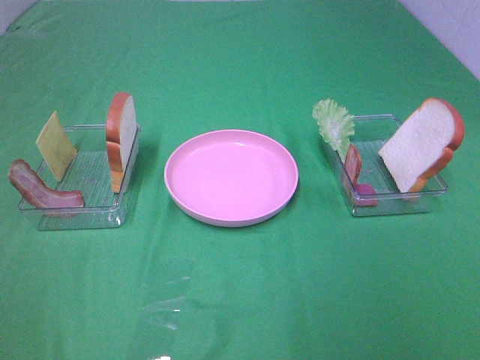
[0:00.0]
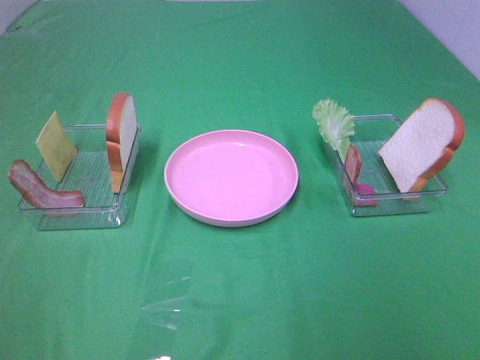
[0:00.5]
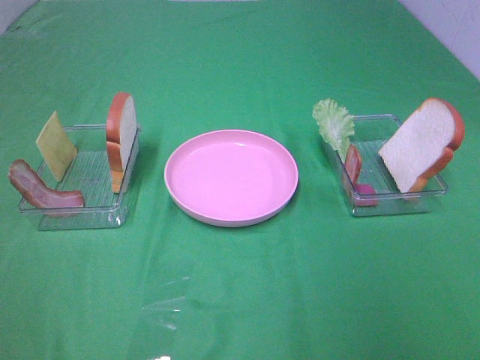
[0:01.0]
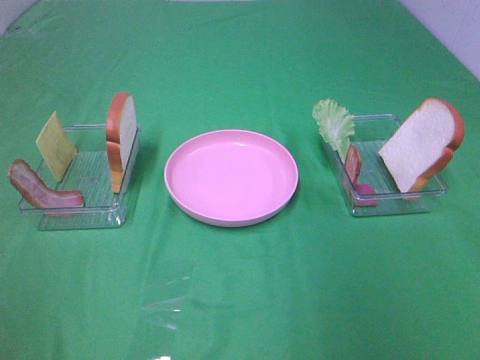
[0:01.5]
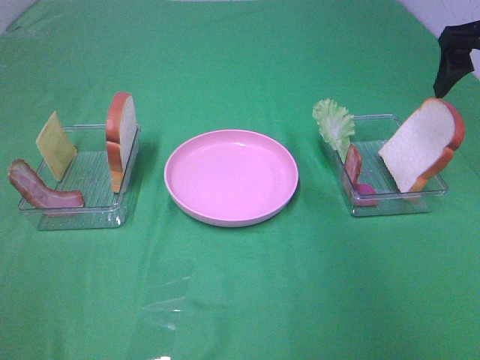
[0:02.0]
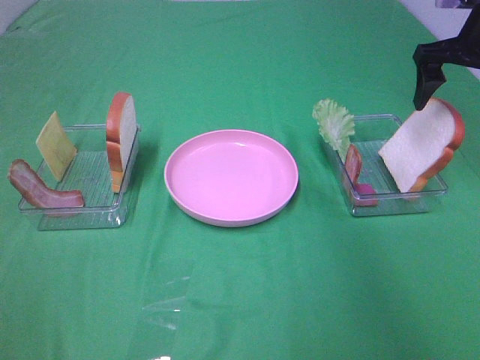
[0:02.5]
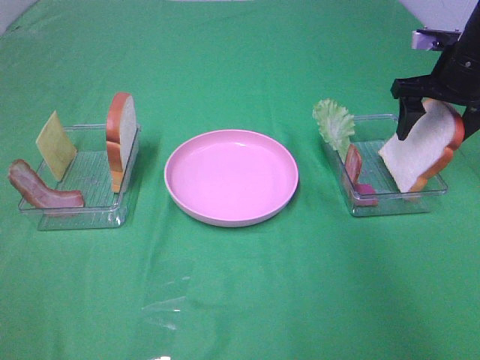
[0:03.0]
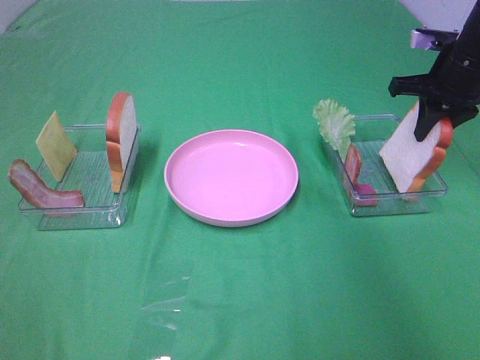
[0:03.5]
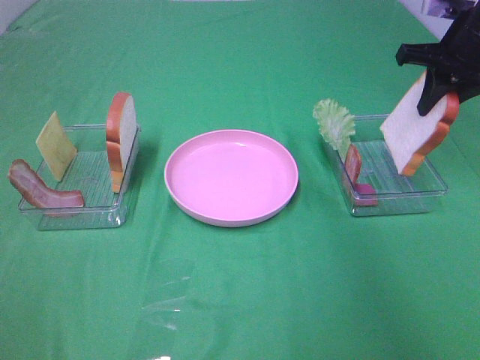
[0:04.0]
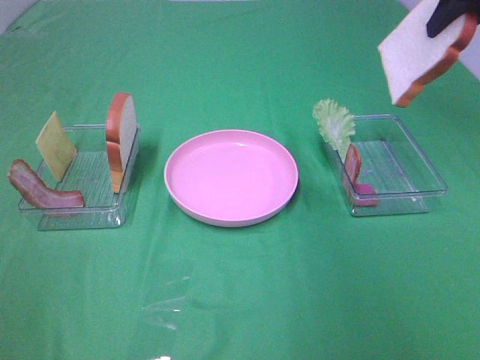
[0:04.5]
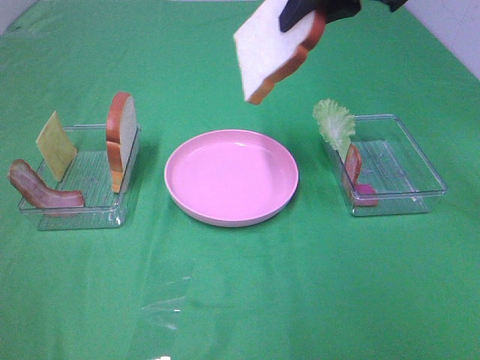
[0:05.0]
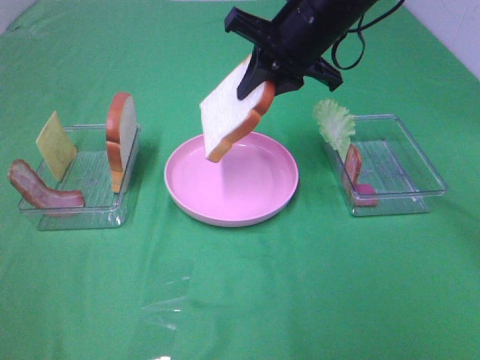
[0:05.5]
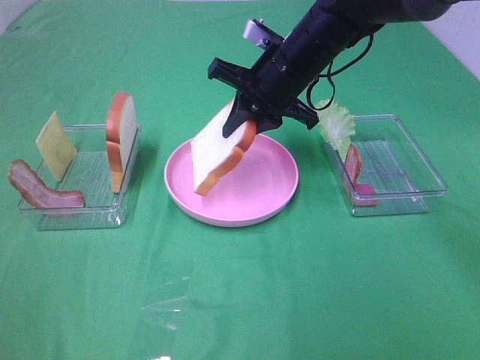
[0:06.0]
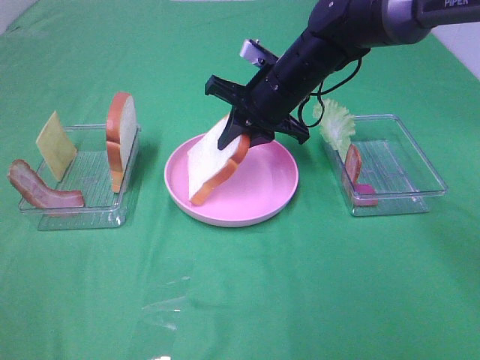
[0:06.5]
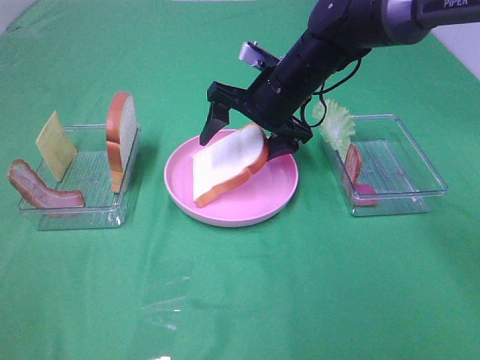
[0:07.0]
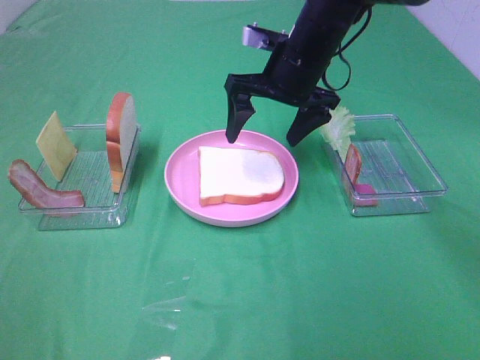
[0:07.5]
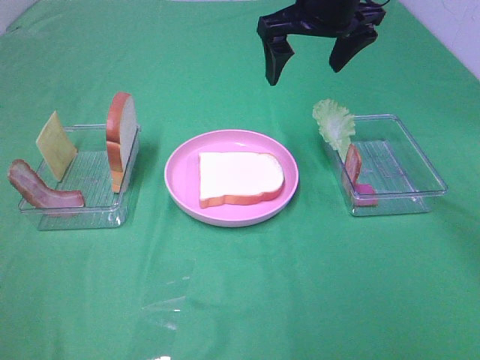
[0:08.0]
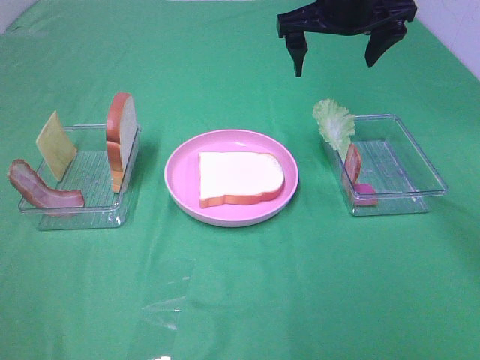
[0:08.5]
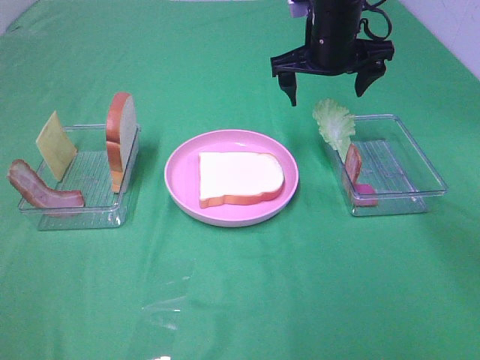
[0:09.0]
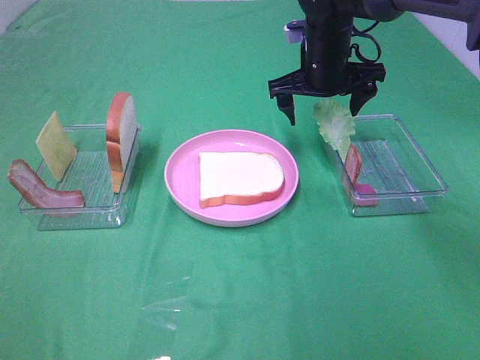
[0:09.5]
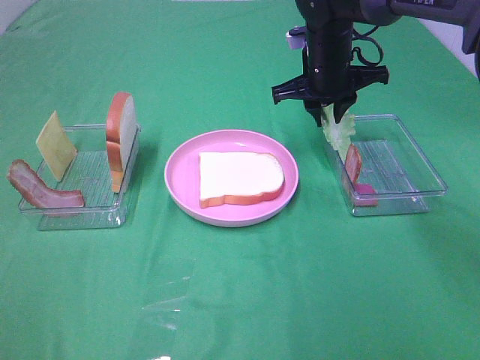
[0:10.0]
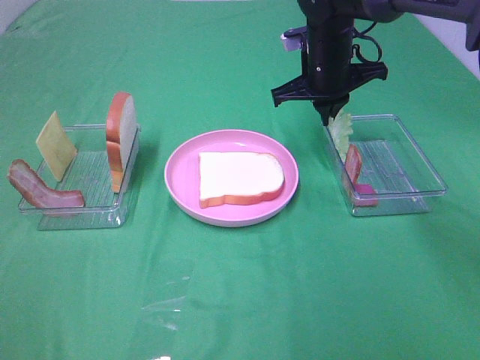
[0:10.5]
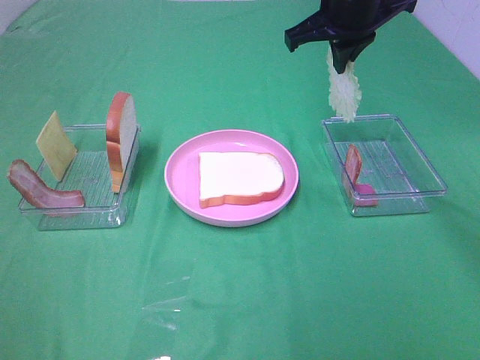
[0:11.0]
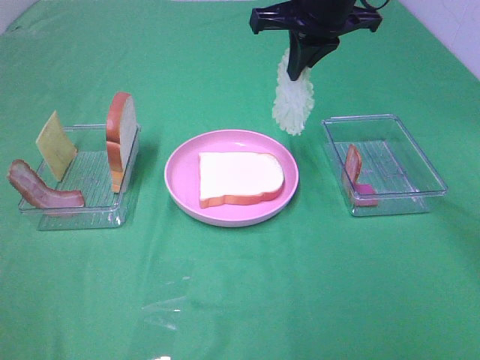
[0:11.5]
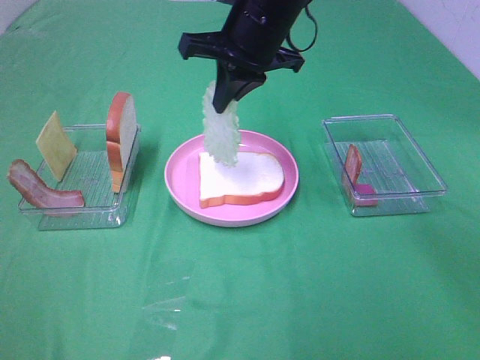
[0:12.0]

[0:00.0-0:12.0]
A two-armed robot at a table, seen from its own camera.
Task of the whole recording: Make sandwiches.
Step, 0:00.0 to 0:03.0: Right hand:grab the bread slice.
Step, 0:03.5 to 0:07.5: Right hand:place the bread slice on the plate.
Step, 0:08.0 to 0:10.0: Right hand:grab the lettuce slice.
0:00.0 to 0:02.0: The right gripper shifts roughly 35 cm forward.
0:02.0 to 0:04.0: The right gripper moves forward, approximately 5 cm, and closes.
0:04.0 to 0:06.0: The right gripper goes some 20 cm to the left.
0:06.0 to 0:08.0: The right gripper moves upward, some 10 cm, and opens its fingers.
0:08.0 to 0:10.0: The right gripper moves downward, roughly 10 cm, and closes.
0:10.0 to 0:12.0: The right gripper moves to the left, upward and backward, approximately 15 cm.

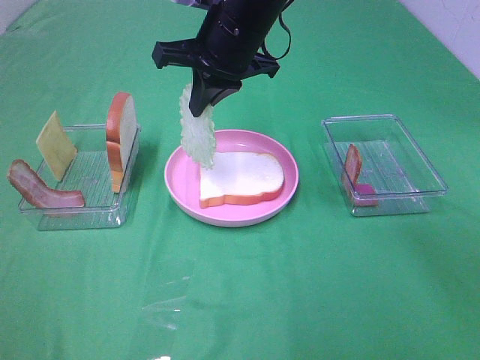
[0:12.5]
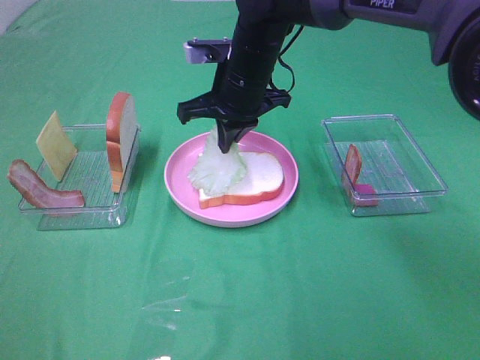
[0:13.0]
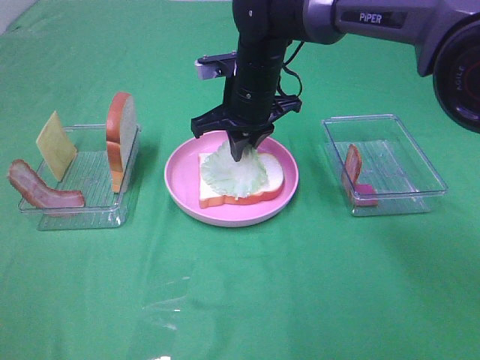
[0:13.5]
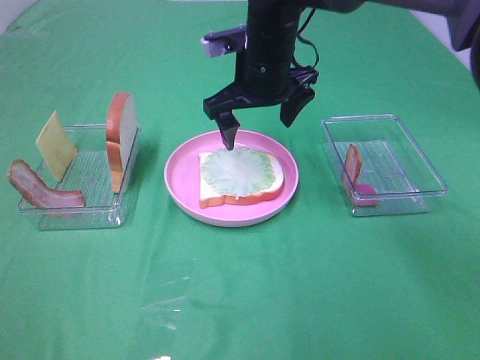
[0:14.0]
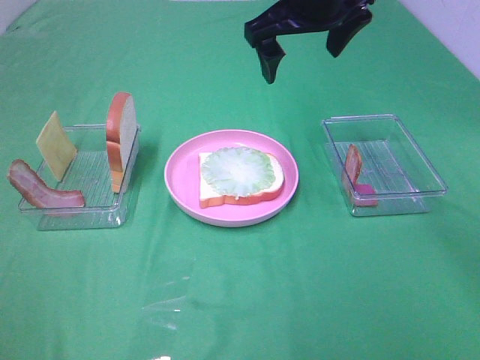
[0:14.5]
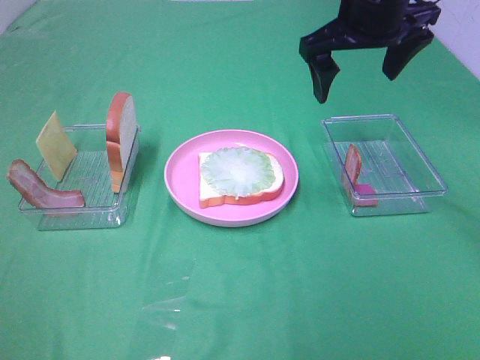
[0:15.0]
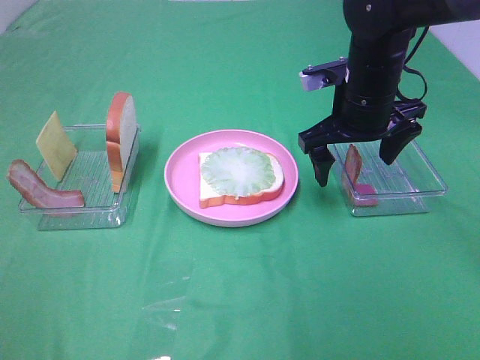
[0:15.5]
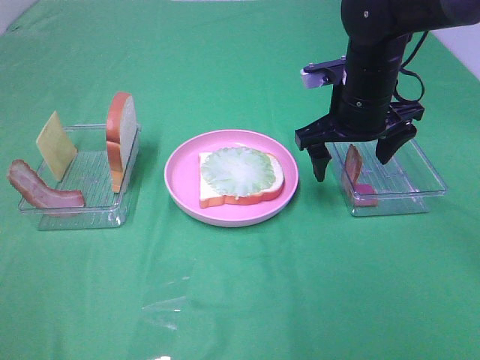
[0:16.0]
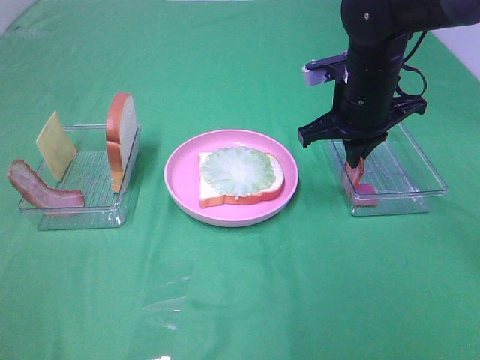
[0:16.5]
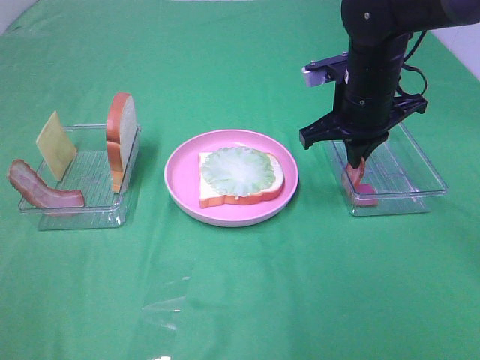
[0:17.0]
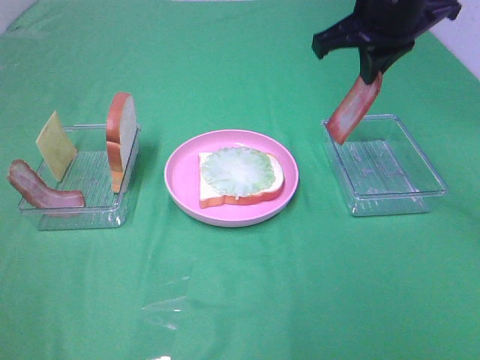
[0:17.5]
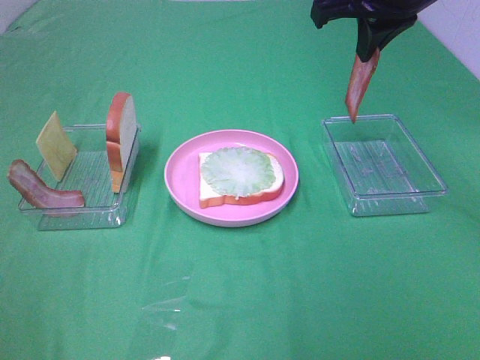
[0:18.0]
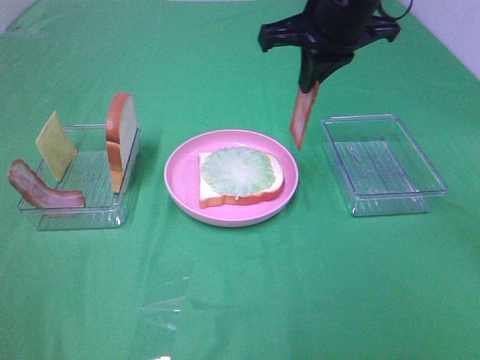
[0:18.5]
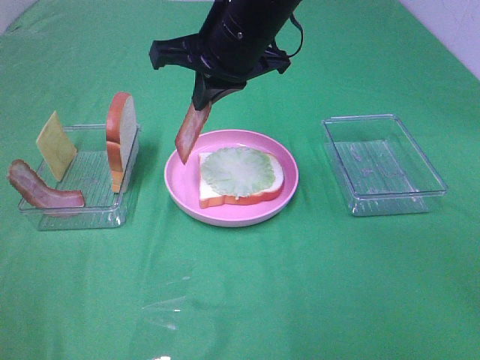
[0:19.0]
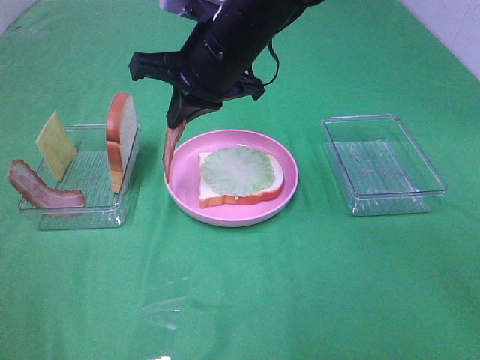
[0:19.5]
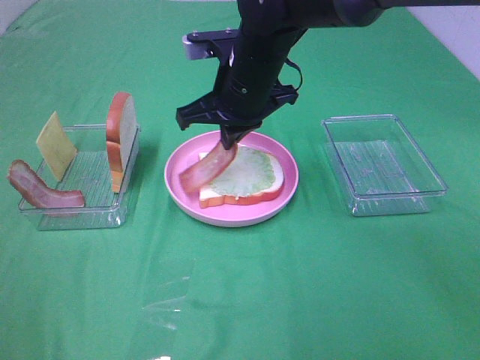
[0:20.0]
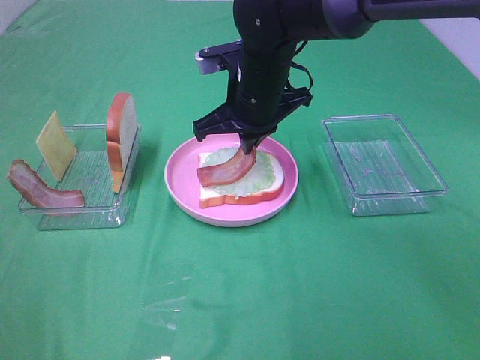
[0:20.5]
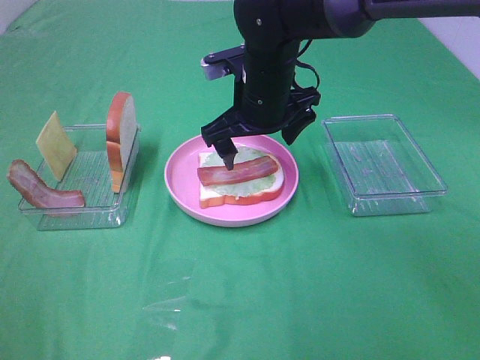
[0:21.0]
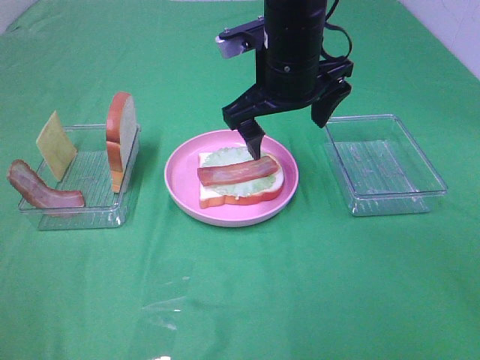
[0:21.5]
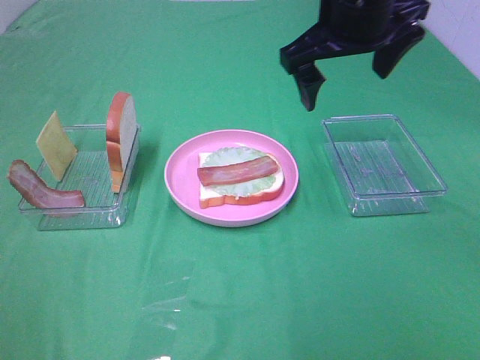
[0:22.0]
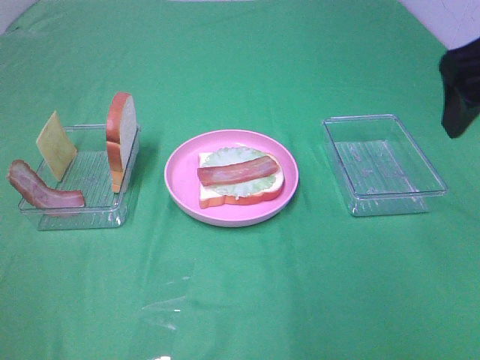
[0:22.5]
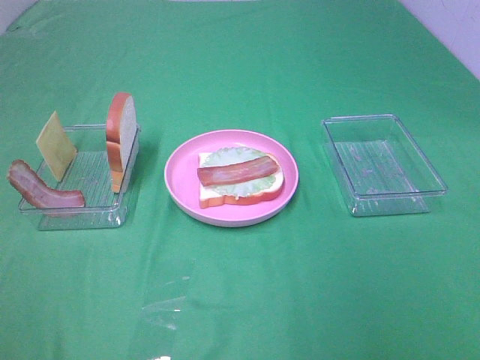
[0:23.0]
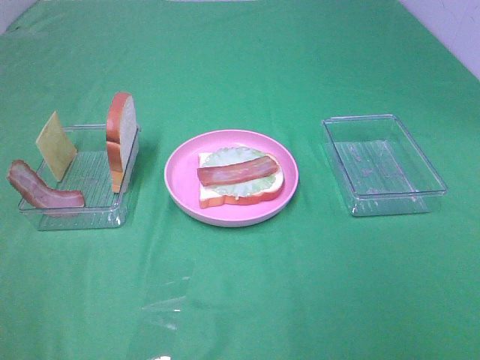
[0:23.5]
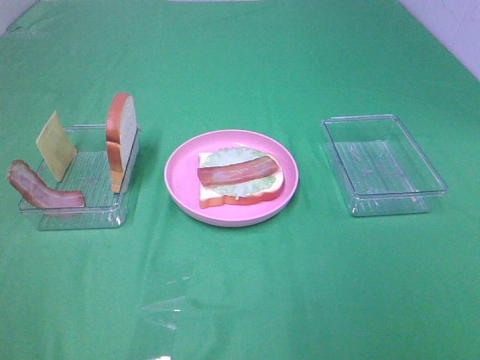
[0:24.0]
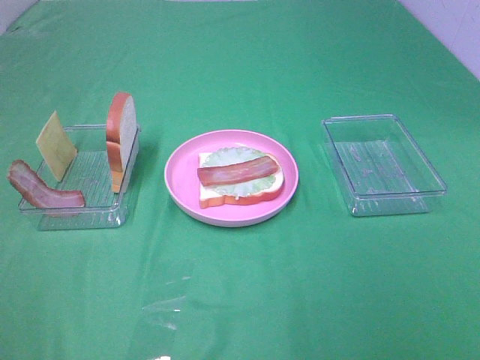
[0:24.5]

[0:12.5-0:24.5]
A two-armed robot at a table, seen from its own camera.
Task of the whole recording: Make sandwiches.
Step, 0:14.0 to 0:16.5: Right hand:grab the bacon.
Step, 0:17.0 to 0:20.5: Right hand:place bacon on lettuce slice.
0:12.5 to 0:14.5: The right gripper shifts about 10 cm to the right and upward, and opens.
0:14.5 to 0:16.5: The right gripper is displaced downward and to the right by some 15 cm, and closes its fingers.
0:16.5 to 0:18.5: The right gripper shifts roughly 10 cm upward.
0:18.5 to 0:20.5: The right gripper is displaced downward and to the left by roughly 15 cm.
0:20.5 to 0:22.5: The right gripper travels to the right, upward and backward by about 30 cm, and opens.
0:22.5 to 0:24.5: The right gripper heads backward, covering roughly 25 cm.

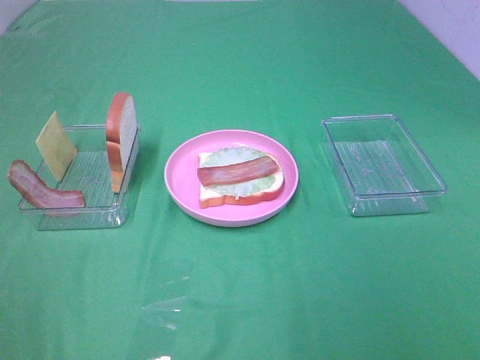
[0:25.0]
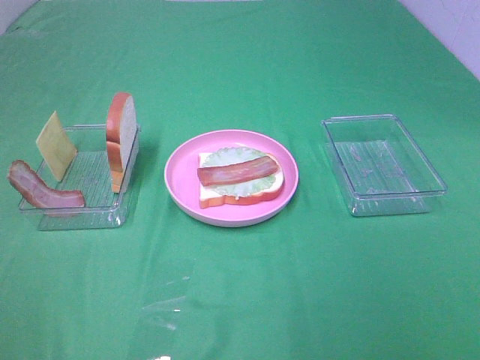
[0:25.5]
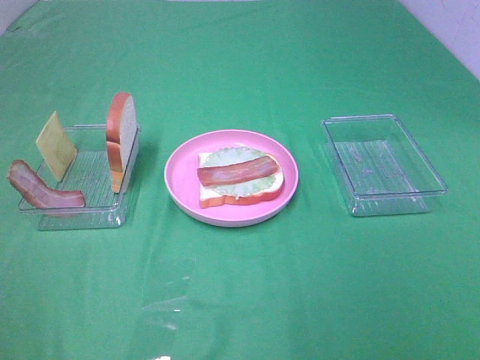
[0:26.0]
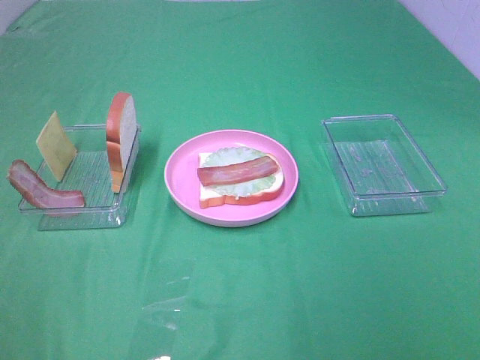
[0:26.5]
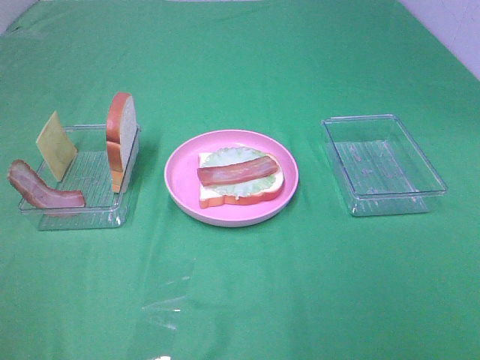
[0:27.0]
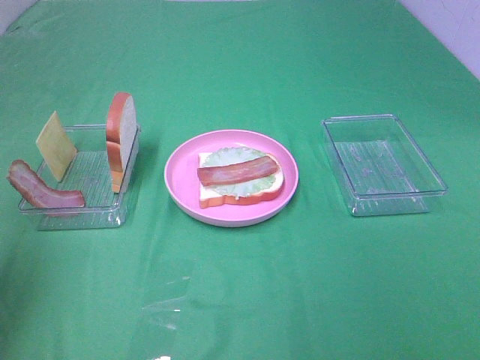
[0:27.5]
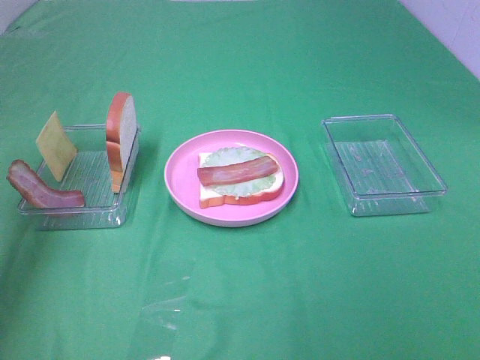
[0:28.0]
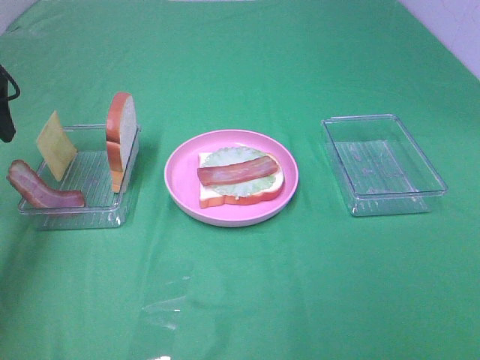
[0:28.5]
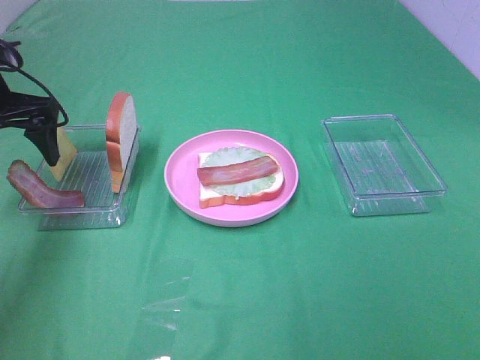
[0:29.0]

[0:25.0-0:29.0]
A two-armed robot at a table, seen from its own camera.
Task of the whole recording: Make sandwiches.
0:27.0 to 0:29.0: The left gripper goes roughly 35 cm forward.
